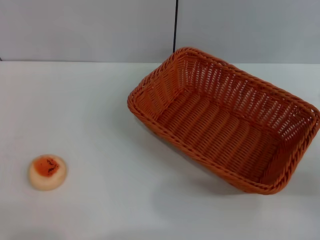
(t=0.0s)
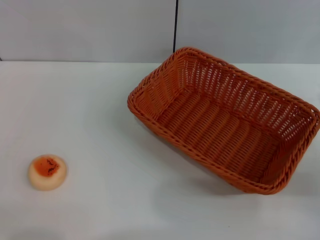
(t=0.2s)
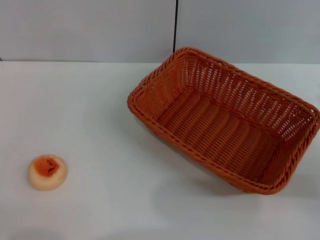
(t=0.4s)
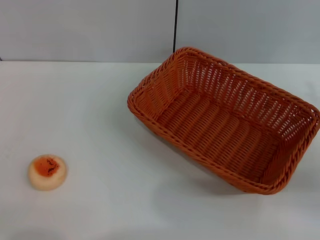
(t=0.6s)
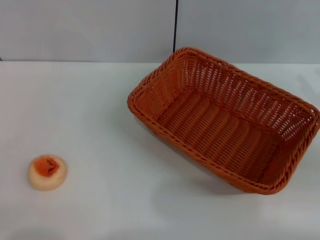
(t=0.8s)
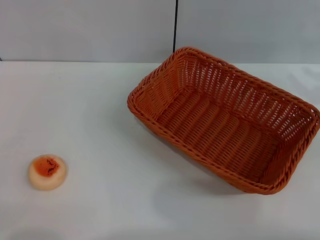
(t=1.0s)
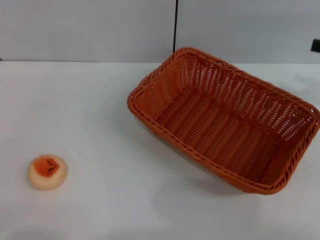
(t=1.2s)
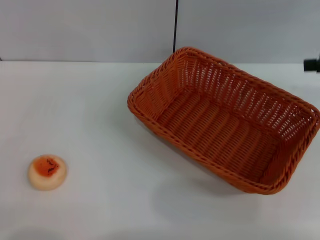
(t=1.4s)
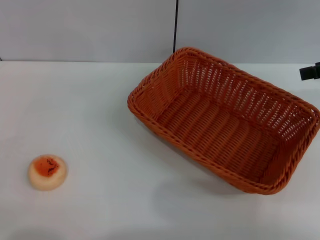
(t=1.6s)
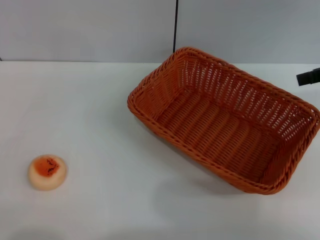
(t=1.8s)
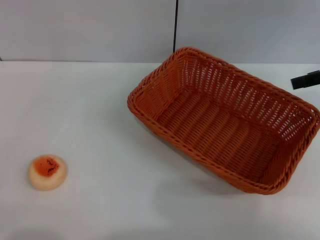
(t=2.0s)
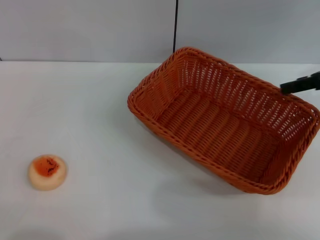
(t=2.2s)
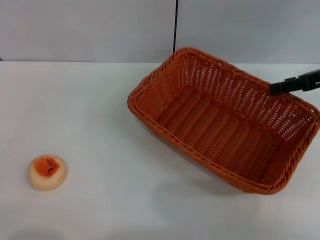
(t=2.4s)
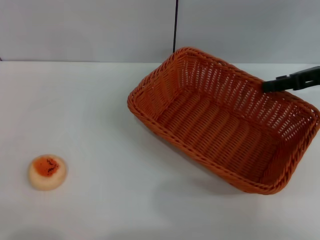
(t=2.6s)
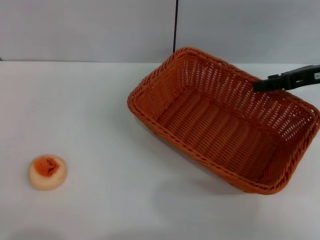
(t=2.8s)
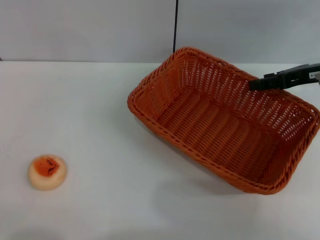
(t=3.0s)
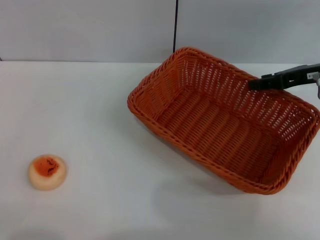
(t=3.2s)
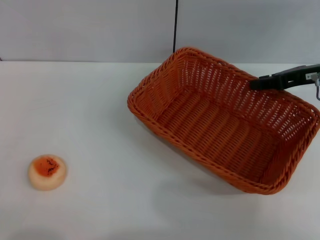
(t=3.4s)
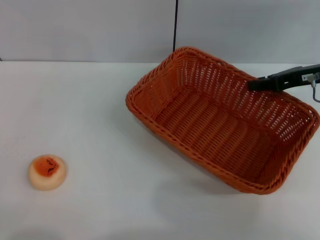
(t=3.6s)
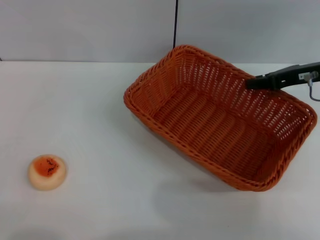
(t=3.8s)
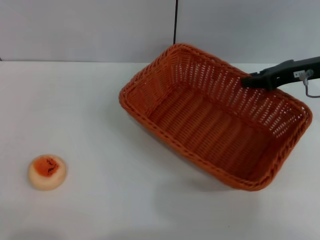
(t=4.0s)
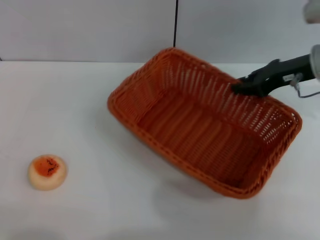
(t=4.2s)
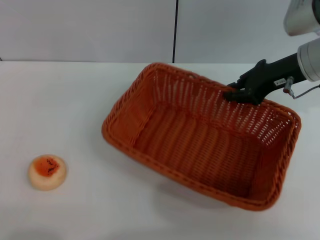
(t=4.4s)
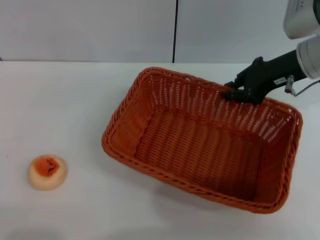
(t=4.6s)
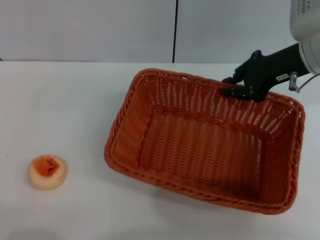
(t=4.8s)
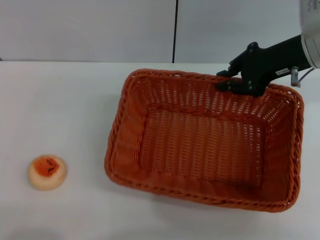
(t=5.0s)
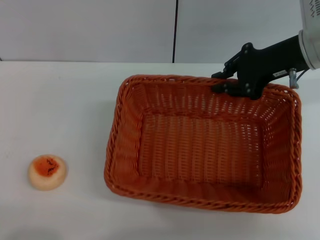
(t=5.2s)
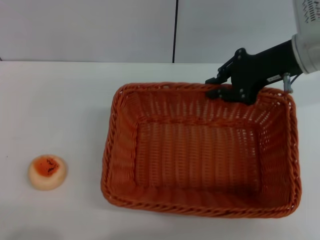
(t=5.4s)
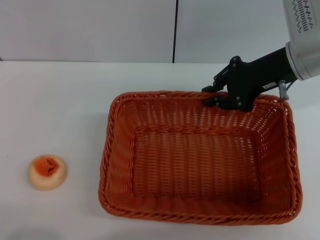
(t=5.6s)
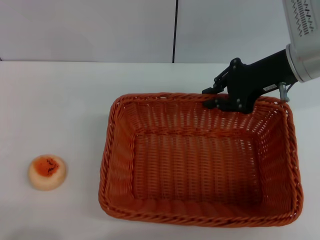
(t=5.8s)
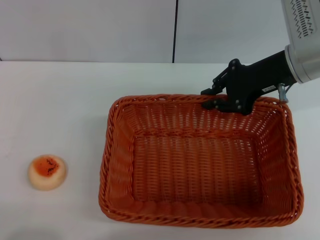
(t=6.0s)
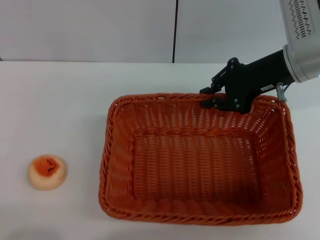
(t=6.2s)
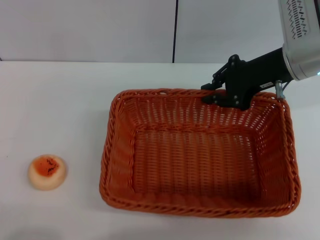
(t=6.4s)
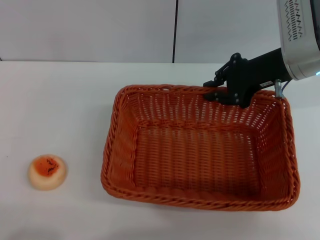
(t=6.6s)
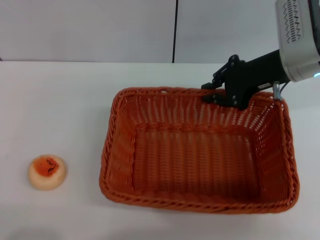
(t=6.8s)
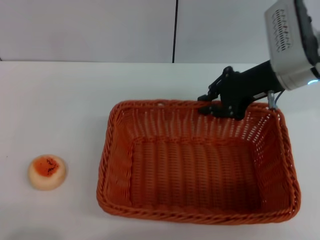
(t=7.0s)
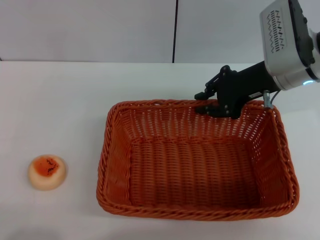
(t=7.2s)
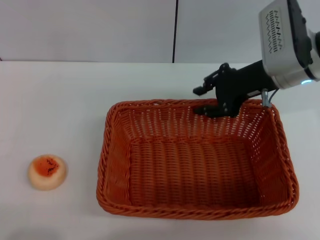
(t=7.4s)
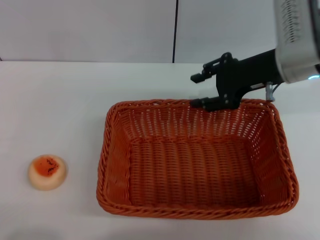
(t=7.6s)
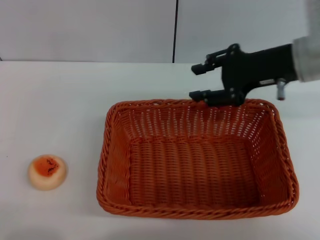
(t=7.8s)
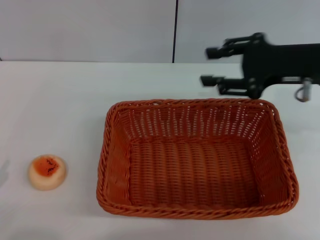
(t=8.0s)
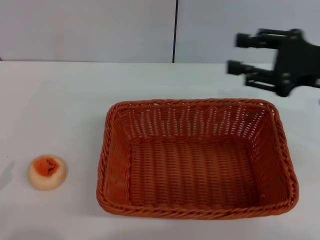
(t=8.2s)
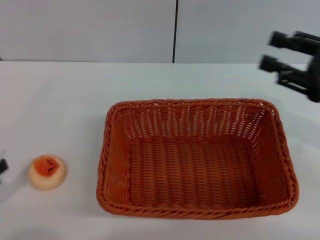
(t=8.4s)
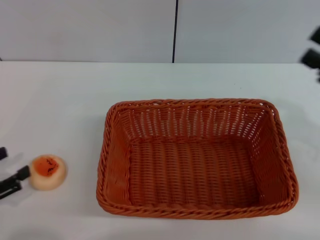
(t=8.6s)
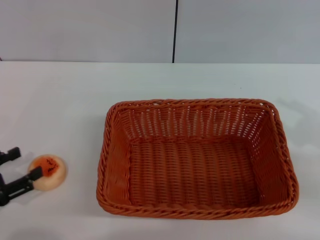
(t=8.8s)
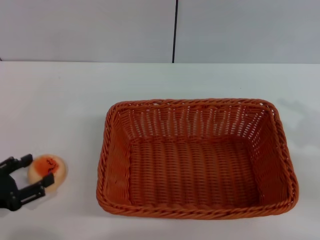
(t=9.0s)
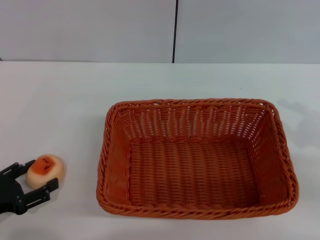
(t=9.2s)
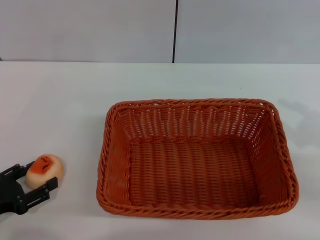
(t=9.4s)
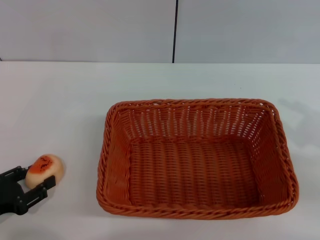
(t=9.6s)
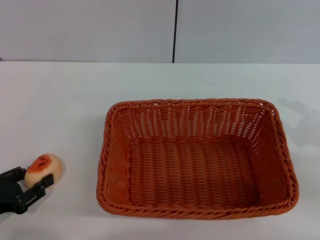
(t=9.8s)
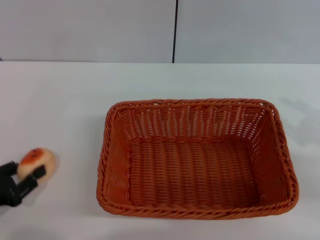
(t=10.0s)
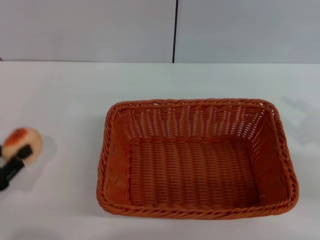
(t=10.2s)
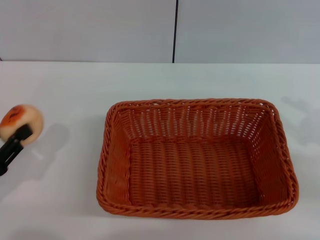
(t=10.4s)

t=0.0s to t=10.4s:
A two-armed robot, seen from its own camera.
Step, t=0.0s to t=7.8s: Move the basket to the center of view with the right gripper.
Step, t=8.0s to t=10.0s: Pick up the egg yolk pastry with the left gripper.
t=0.0s to t=1.4s: The right gripper travels upward and forward by some 20 cm.
t=1.4s to t=3.0s: The right gripper moves downward, forward and to the left, roughly 10 cm.
t=3.0s to t=4.4s: The right gripper goes about 5 cm to the left, and closes up.
t=6.0s to t=7.4s: The right gripper opens.
t=7.4s to t=9.0s: The right gripper travels backward and to the right by roughly 20 cm, and opens its fingers. Meanwhile the left gripper goes some 5 cm forward.
t=9.0s to t=10.4s: The left gripper closes up.

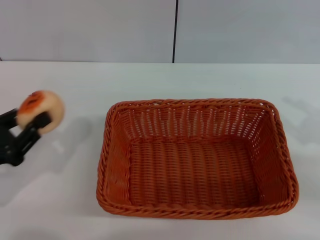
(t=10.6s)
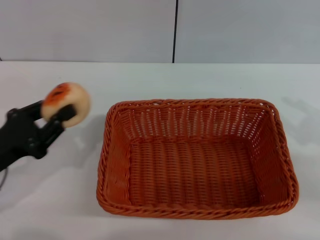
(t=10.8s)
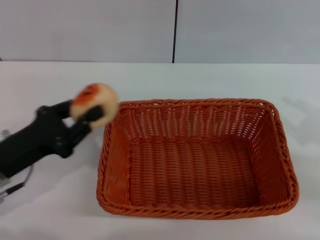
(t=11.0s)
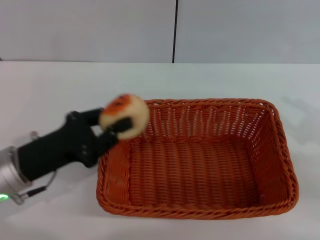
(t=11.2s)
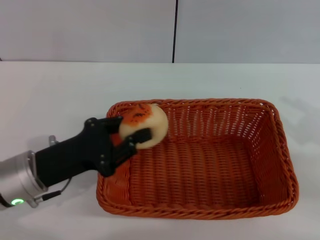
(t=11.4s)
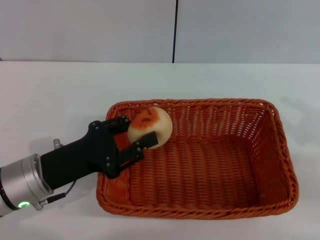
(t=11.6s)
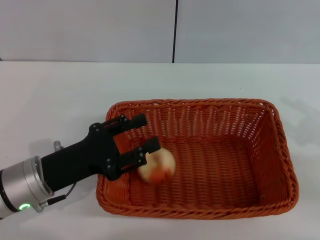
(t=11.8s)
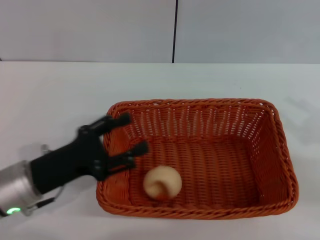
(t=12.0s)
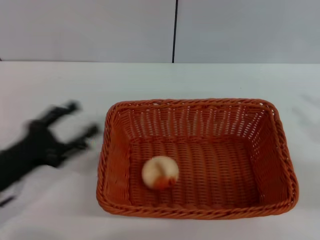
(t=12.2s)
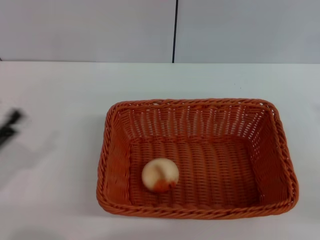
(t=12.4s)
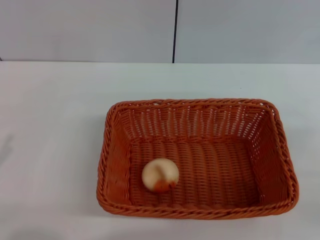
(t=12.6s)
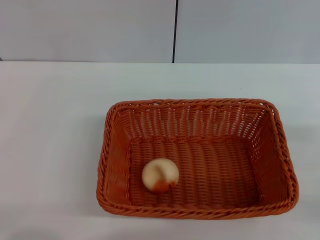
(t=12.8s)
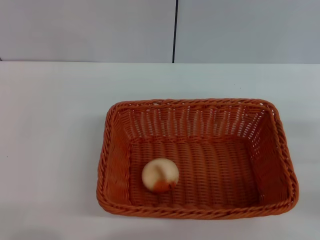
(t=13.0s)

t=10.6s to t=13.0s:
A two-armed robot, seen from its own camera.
Step, t=10.6s to t=11.8s: Place the egg yolk pastry into the basket with the left gripper.
t=10.6s to t=11.8s: The left gripper is displaced to the right by some 10 cm.
t=11.8s to t=13.0s: The left gripper goes some 20 cm to the left and backward, and opens its fingers. Meanwhile the right gripper shifts approximately 5 cm downward.
